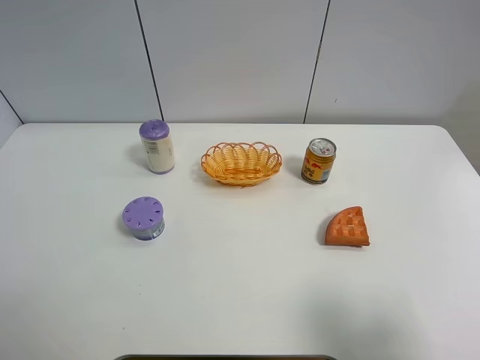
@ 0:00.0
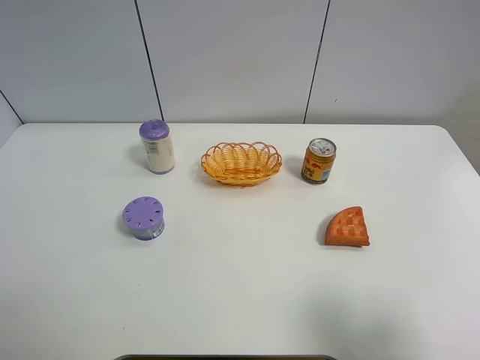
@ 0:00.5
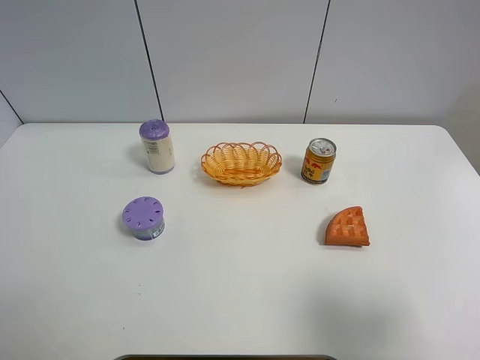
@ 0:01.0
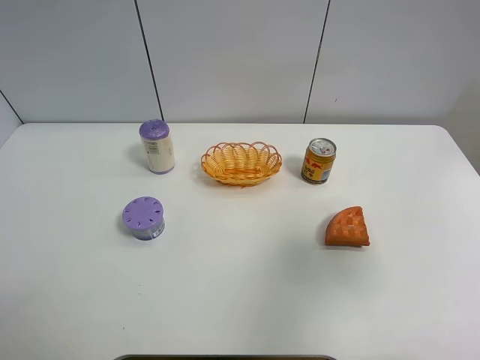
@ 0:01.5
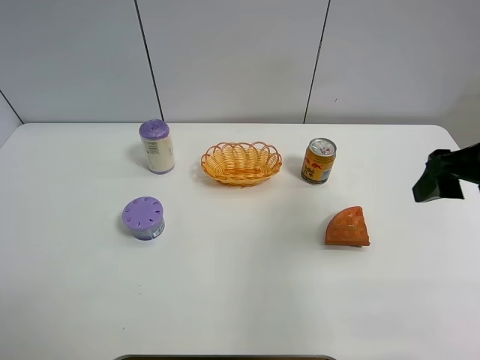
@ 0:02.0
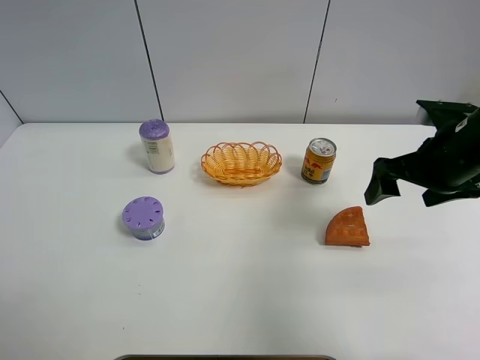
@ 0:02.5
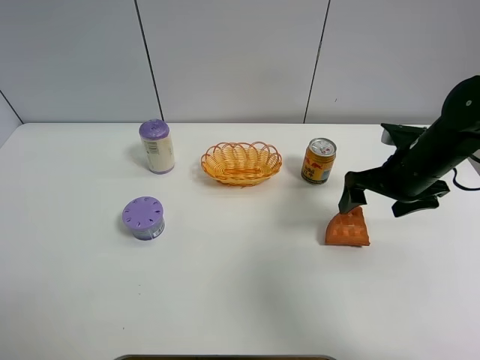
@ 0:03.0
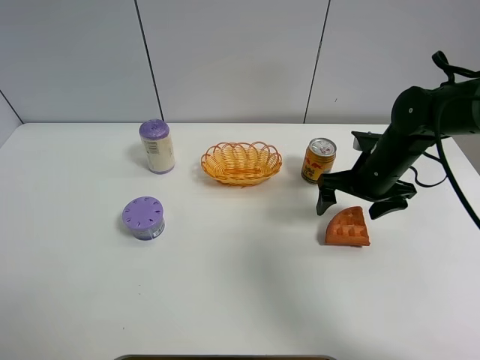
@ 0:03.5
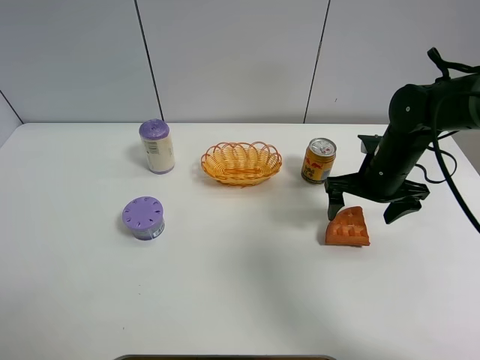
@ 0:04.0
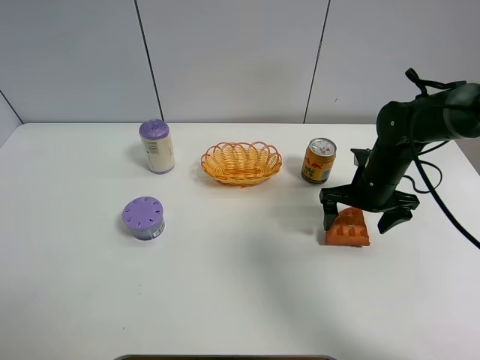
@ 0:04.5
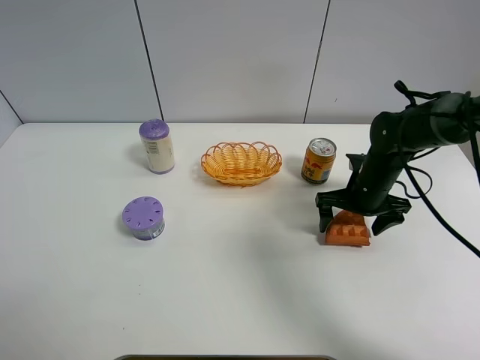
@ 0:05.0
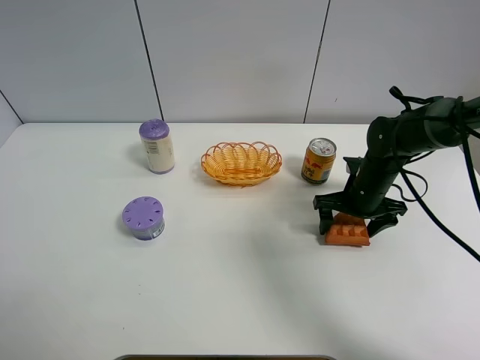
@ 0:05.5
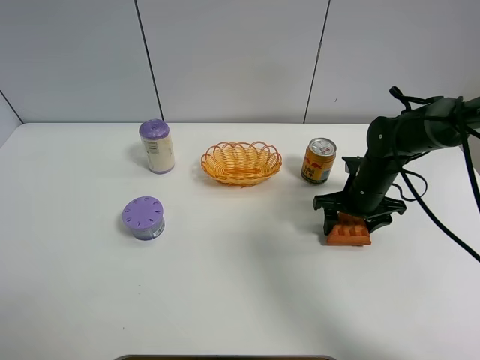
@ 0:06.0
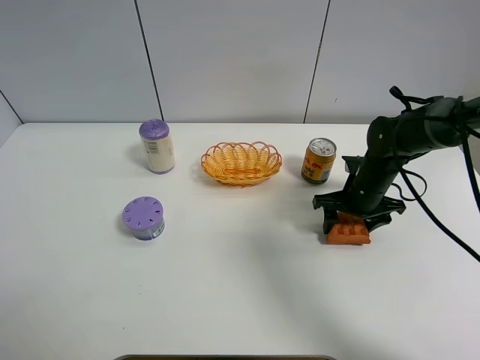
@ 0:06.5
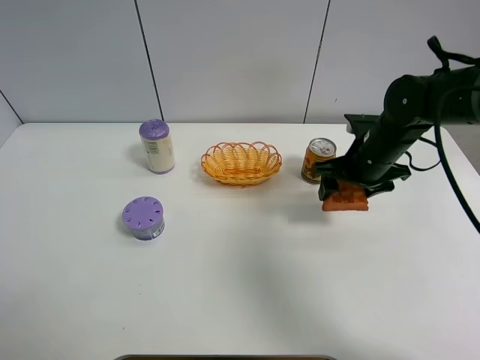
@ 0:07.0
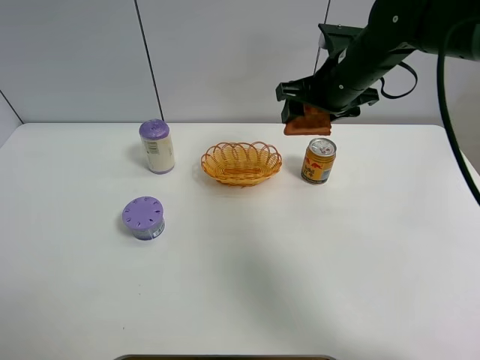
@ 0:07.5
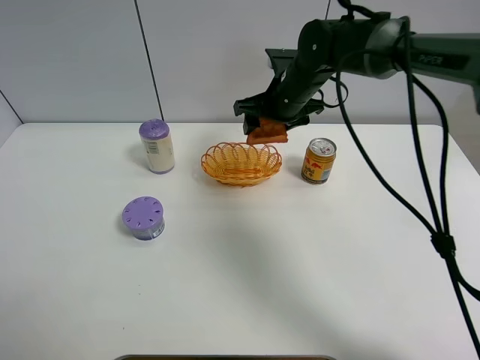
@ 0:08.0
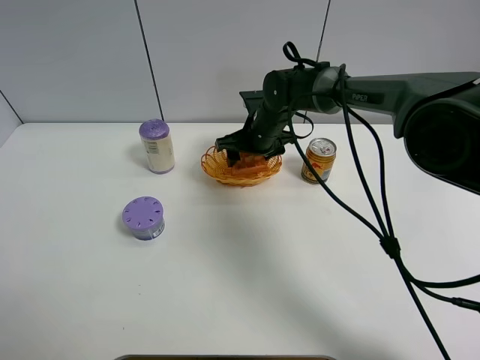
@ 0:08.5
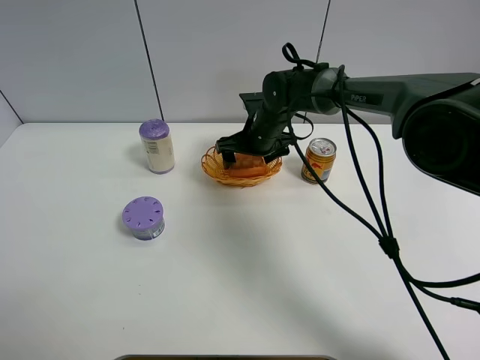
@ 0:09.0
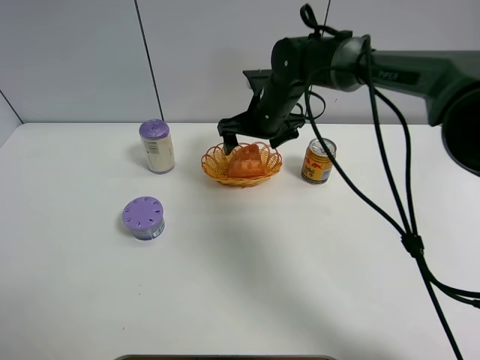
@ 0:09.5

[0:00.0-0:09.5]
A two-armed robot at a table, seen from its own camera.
Task of the whole recording: Put the bakery in the basket.
Step, 0:00.0 to 0:05.5: Grasp the bread with right gripper.
0:00.0 to 0:02.0: The right gripper heads forward, covering some 20 cm.
0:02.0 to 0:04.0: The right gripper is displaced downward and forward by some 20 cm, and opens its fingers.
0:04.0 to 0:05.5: The right gripper moves downward, some 5 cm, and closes up.
0:05.5 to 0:07.5: The right gripper moves upward and to the left, roughly 20 cm, and closes its fingers.
0:07.5 to 0:09.5: The right gripper heads to the left and downward, covering some 10 cm, and opens.

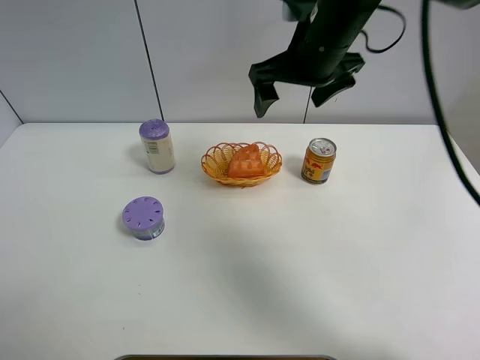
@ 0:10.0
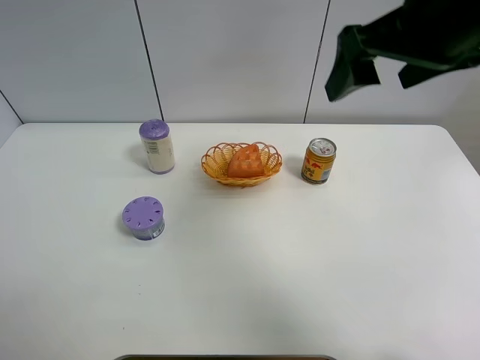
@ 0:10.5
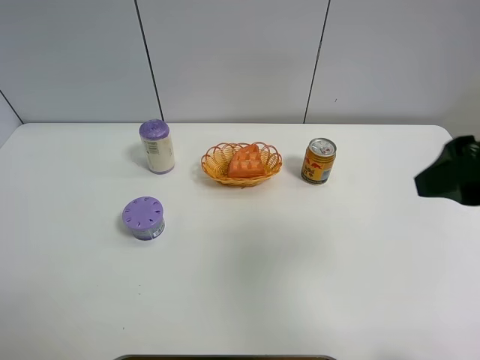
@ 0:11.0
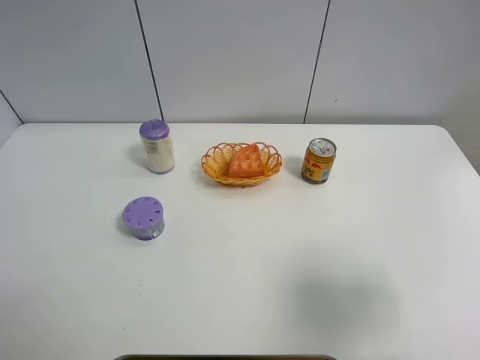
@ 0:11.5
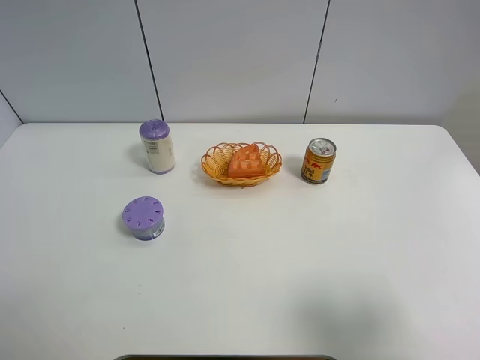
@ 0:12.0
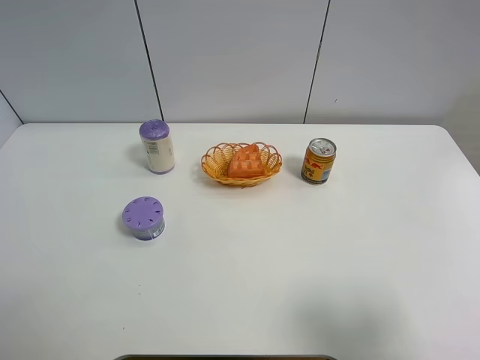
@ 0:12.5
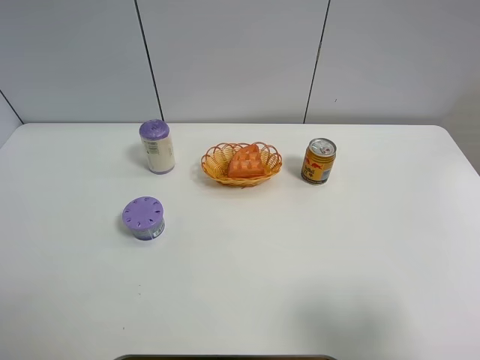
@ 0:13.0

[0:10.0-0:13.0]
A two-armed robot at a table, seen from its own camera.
Task of the whole recording: Put the bakery in the basket.
0:10.0 to 0:11.5: The right gripper is displaced backward and to the right by roughly 35 cm.
0:11.5 to 0:13.0: The right gripper shifts some 5 cm backward.
